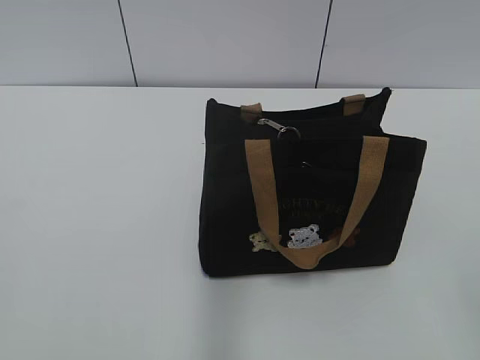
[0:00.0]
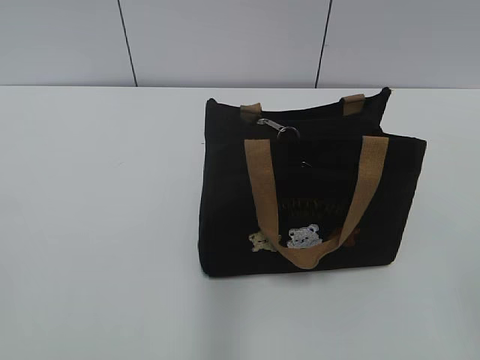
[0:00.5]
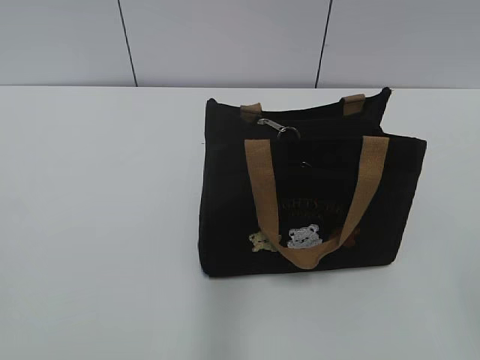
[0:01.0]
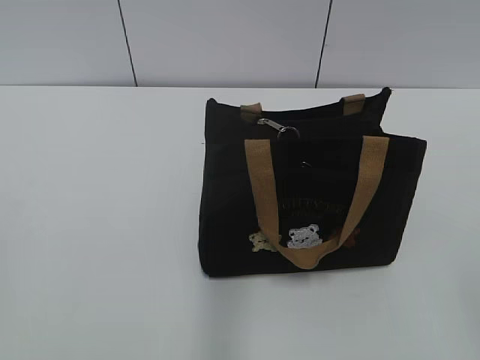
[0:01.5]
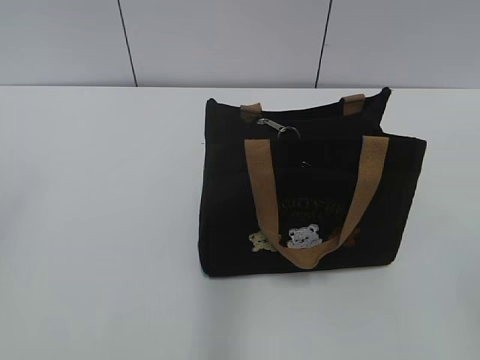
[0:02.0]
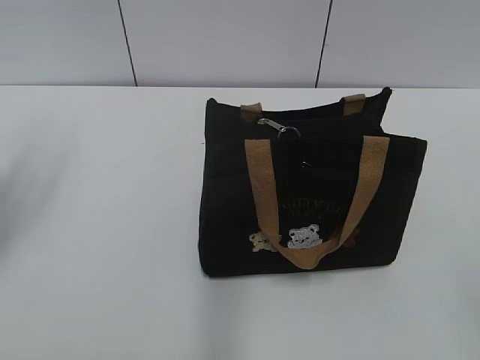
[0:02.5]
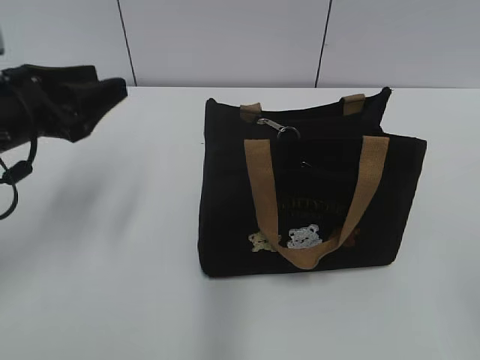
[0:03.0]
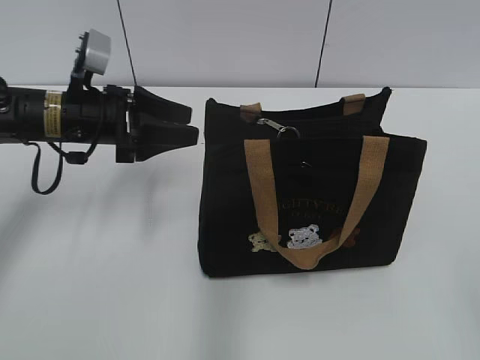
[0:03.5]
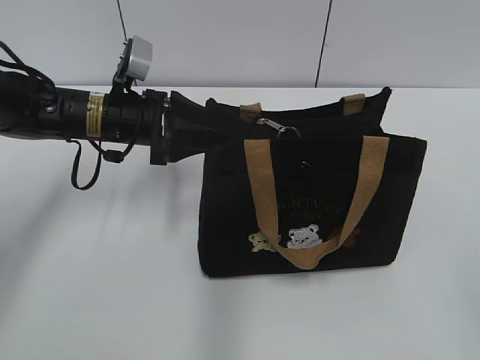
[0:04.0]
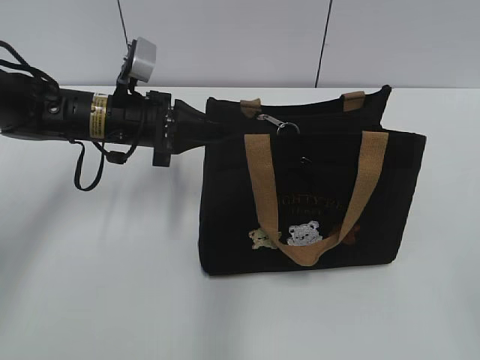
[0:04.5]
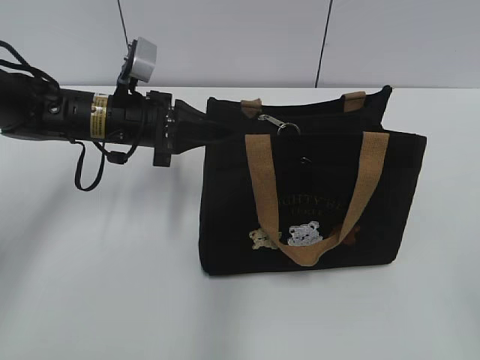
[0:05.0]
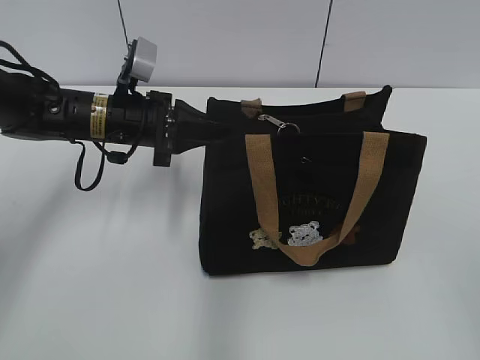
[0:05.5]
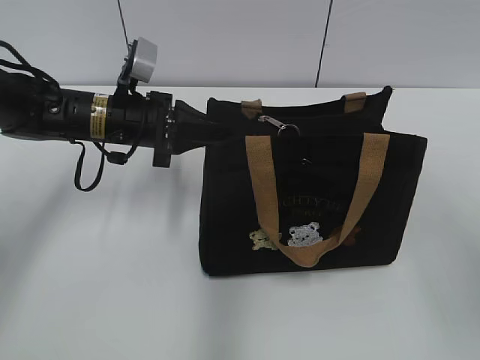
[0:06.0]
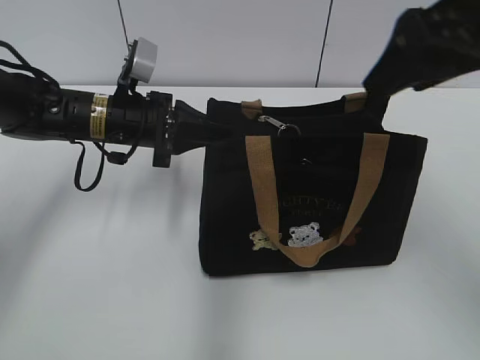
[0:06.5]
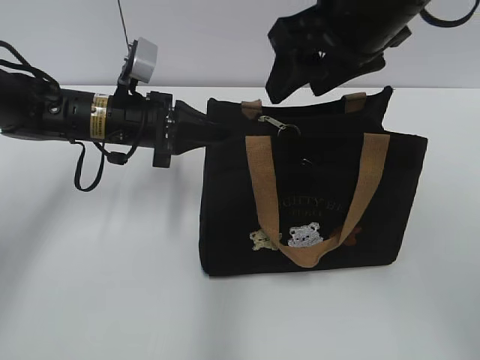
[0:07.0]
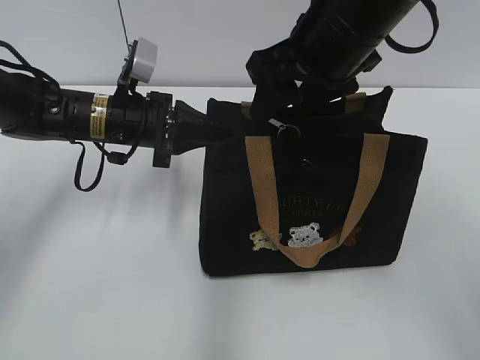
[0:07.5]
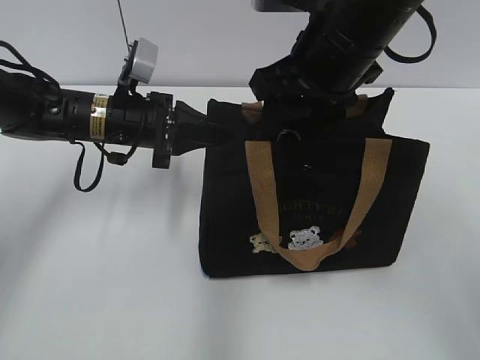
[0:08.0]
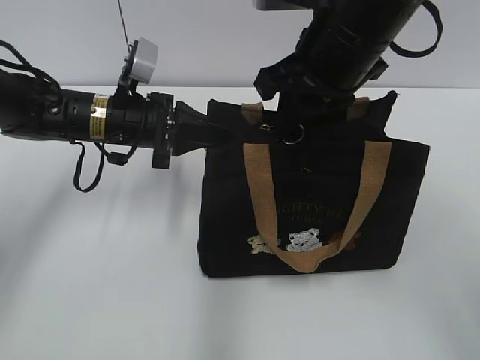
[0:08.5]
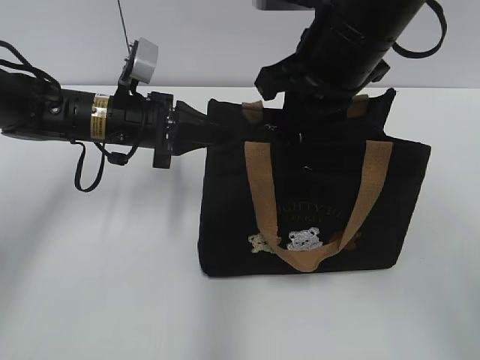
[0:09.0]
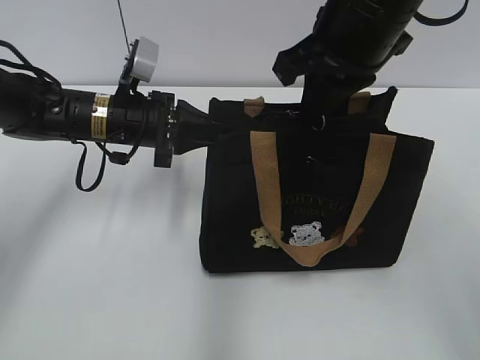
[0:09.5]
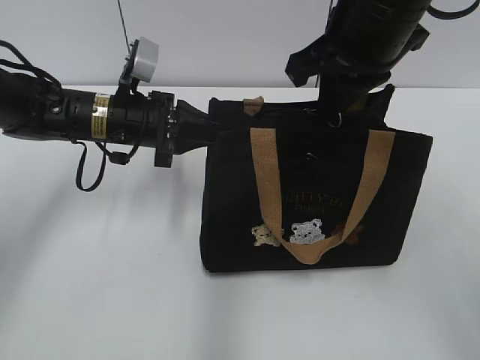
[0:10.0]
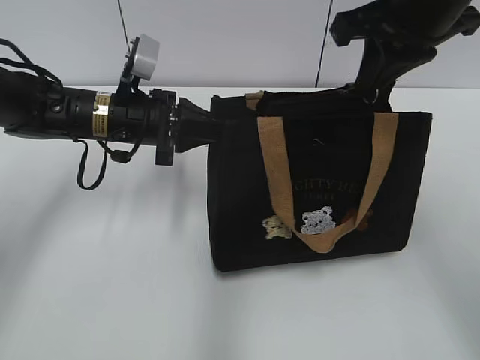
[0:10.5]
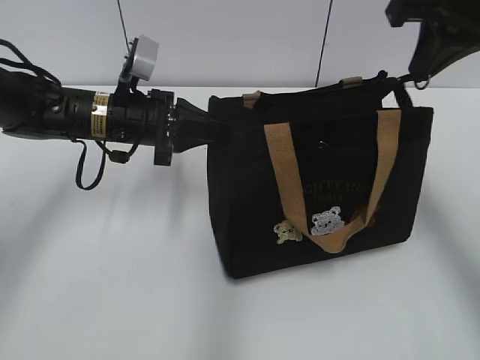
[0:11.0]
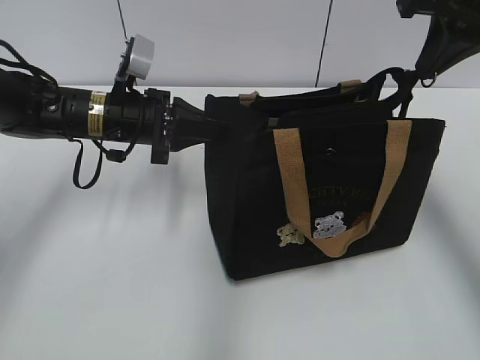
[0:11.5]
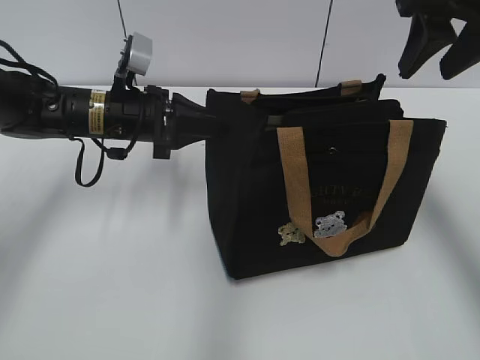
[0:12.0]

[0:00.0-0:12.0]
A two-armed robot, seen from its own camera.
Step, 0:00.0 to 0:11.5: Pull open the zipper with your right hand.
0:02.0 to 0:04.0: The left gripper goes approximately 40 cm forward, downward and to the right.
0:04.0 to 0:06.0: The left gripper closes its fingers. The right gripper shifts about 15 cm forward and upward.
0:06.0 to 0:08.0: The right gripper travels forward and to the left by roughly 25 cm.
0:08.0 to 0:10.0: The right gripper closes.
0:10.0 to 0:12.0: The right gripper shifts some 10 cm to the right, and opens.

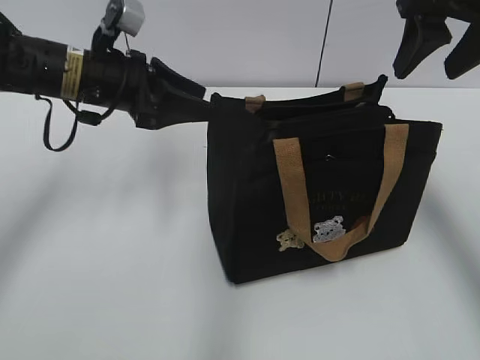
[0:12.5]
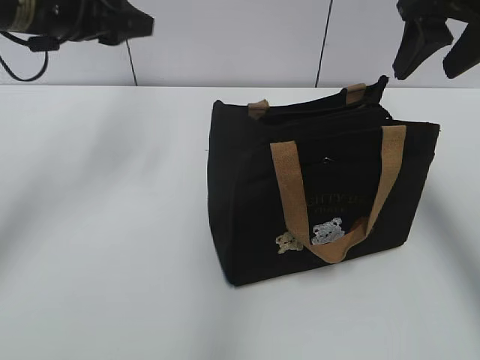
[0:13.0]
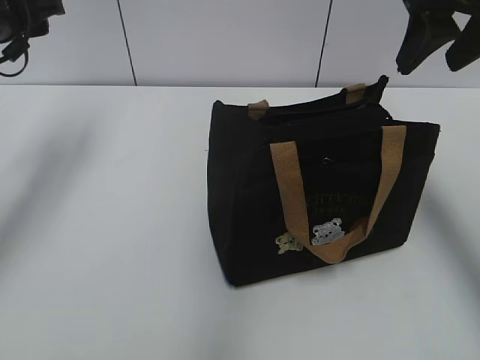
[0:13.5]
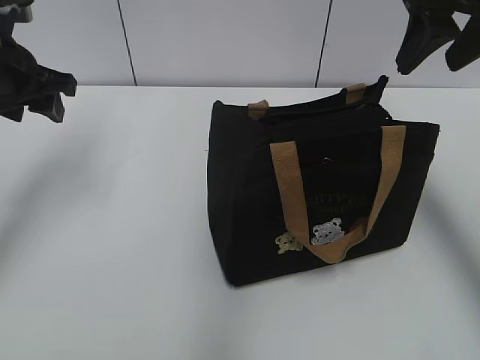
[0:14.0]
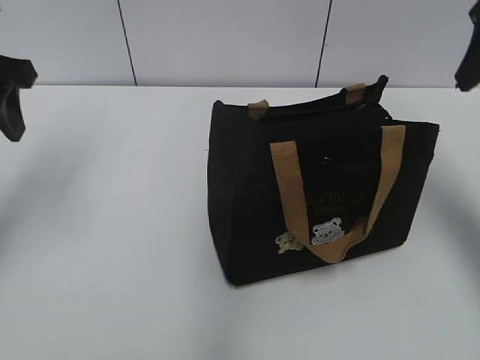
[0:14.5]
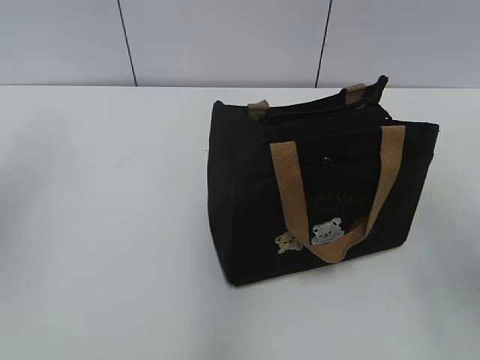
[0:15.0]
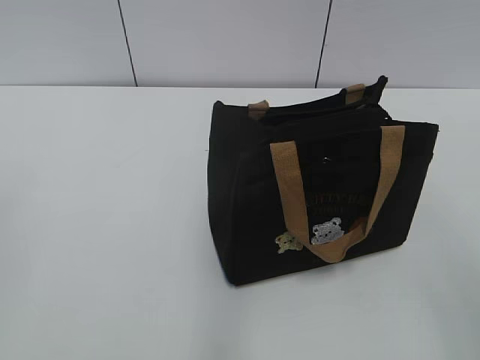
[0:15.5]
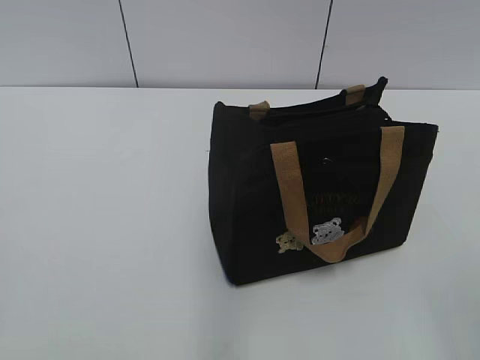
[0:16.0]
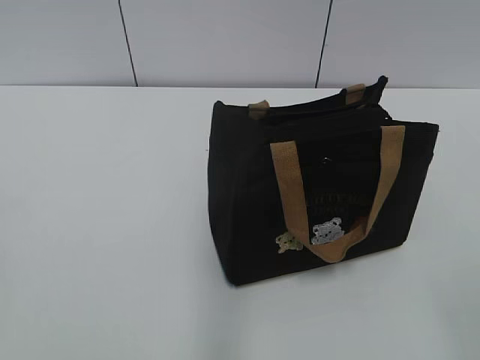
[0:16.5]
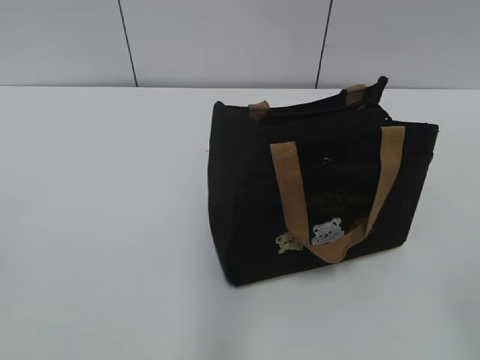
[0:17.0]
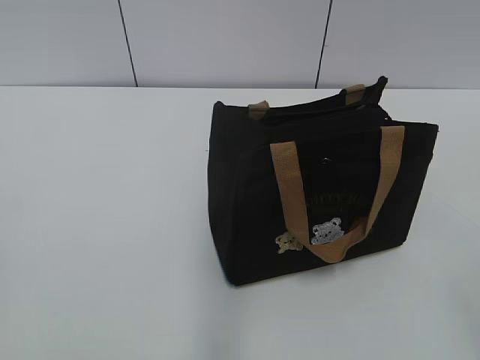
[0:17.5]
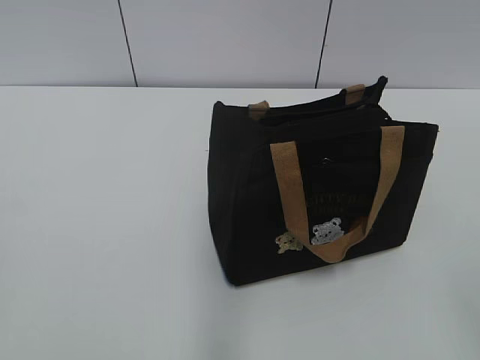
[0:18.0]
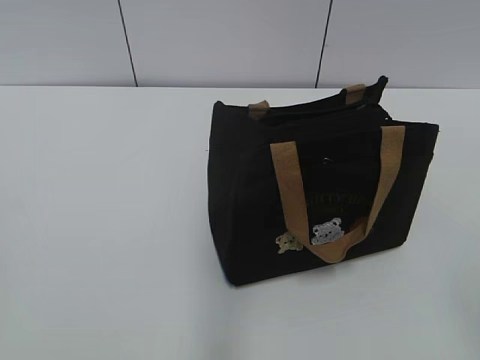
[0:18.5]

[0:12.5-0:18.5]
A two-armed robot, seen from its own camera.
0:12.5 to 0:14.5: The right gripper moves roughly 5 cm; the left gripper shifts some 15 cm to the left, upward and backward.
0:14.5 to 0:16.5: Both grippers move backward, roughly 30 cm.

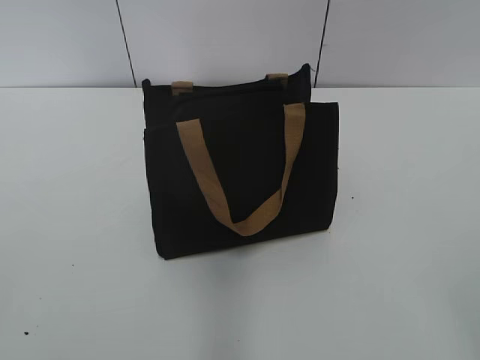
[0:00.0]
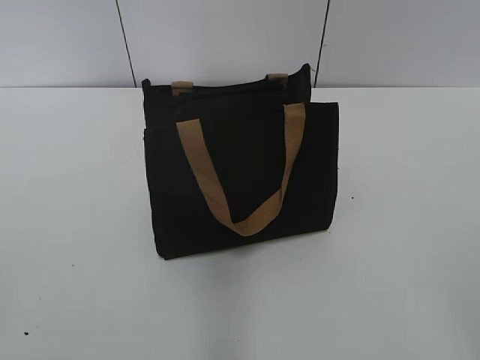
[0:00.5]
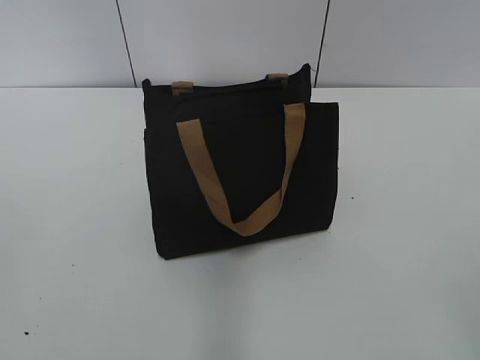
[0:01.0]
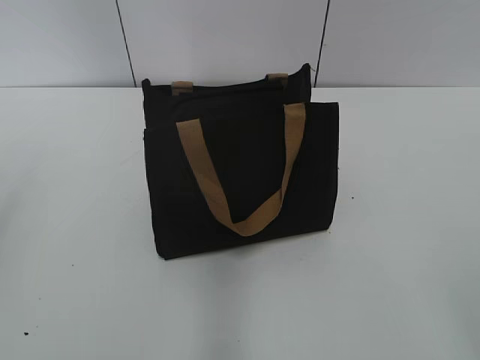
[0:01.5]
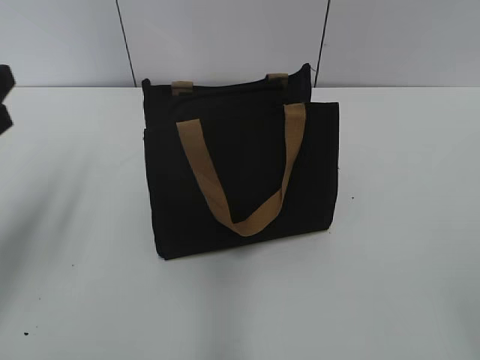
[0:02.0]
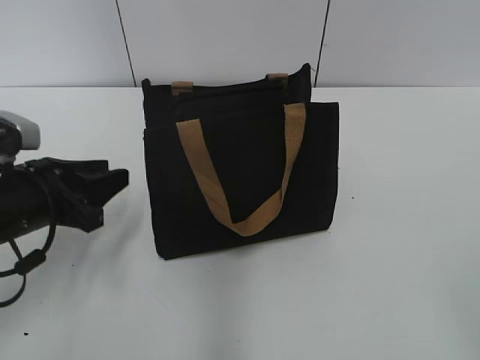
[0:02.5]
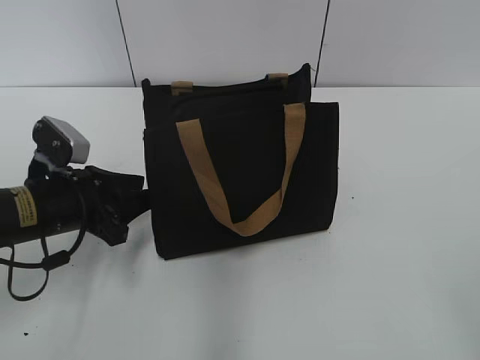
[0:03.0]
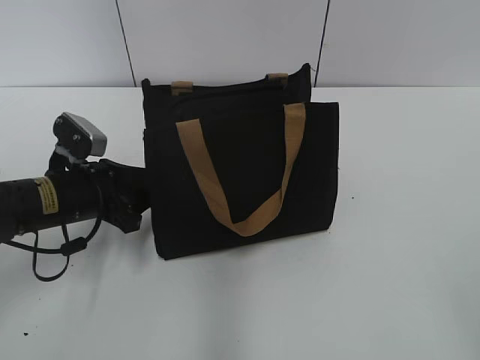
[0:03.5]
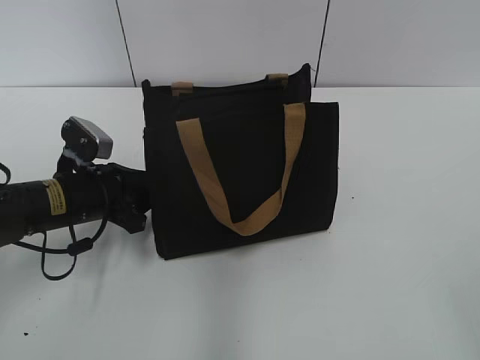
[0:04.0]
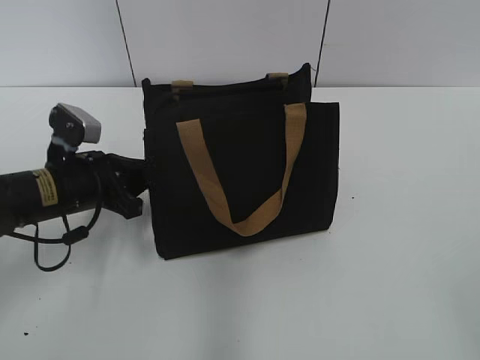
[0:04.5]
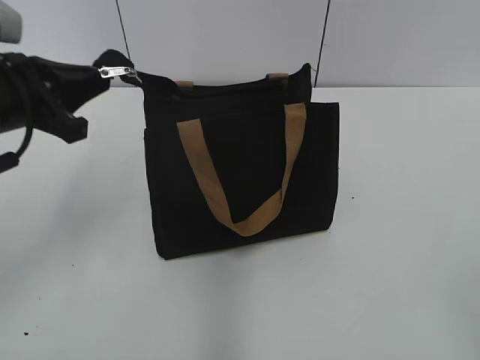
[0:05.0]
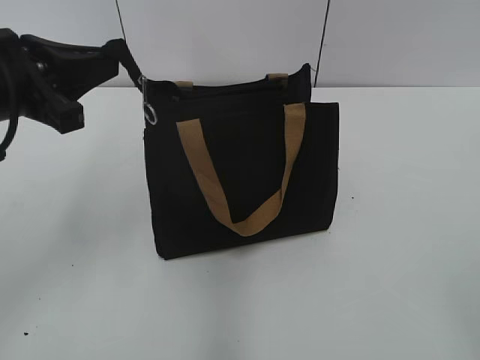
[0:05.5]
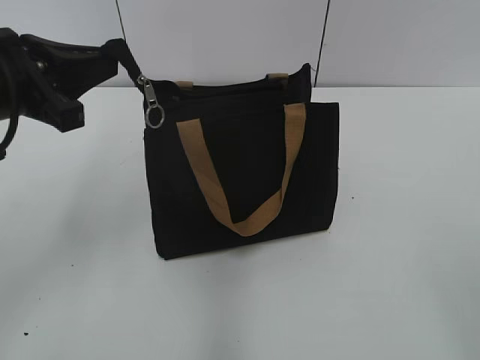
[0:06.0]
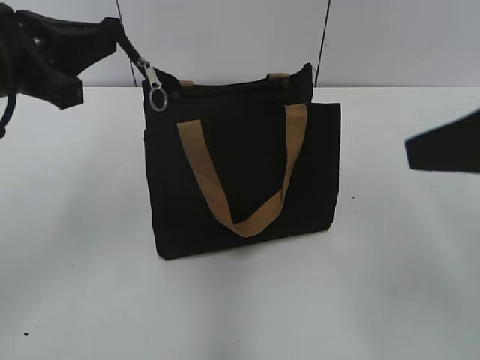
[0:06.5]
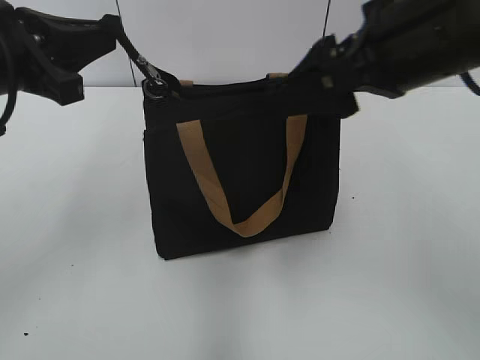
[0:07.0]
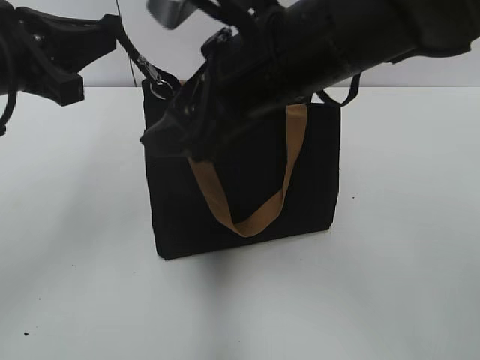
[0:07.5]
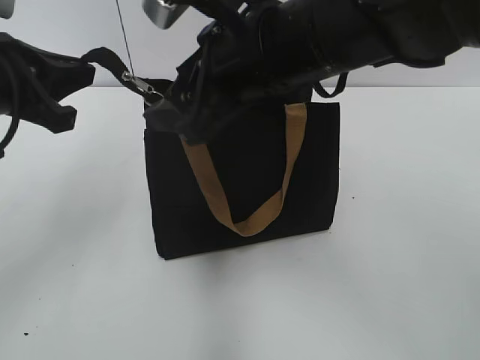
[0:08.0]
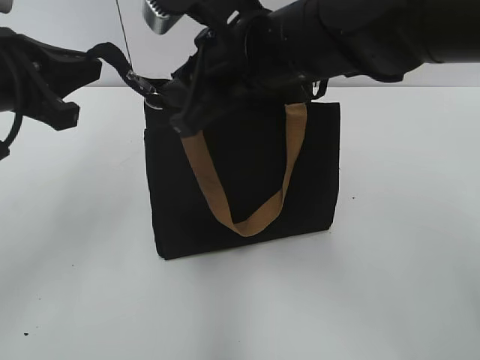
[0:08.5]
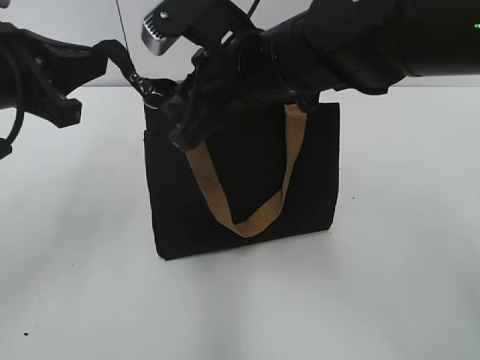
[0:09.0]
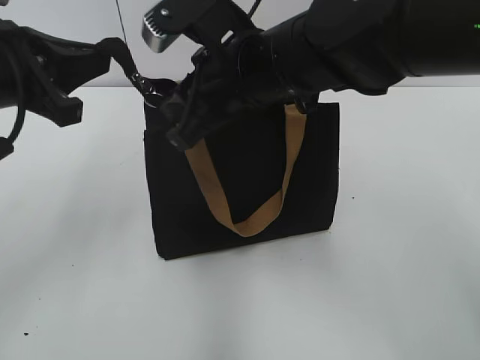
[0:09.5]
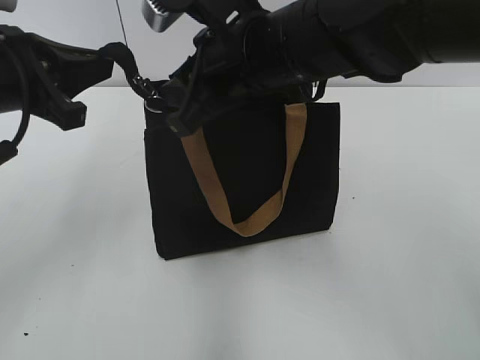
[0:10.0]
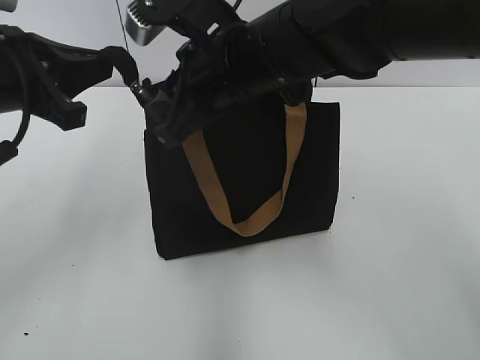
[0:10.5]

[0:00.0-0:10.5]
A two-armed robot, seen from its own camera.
0:02.0 to 0:04.0: The left gripper goes some 20 cm downward, forward and to the right.
0:04.0 to 0:06.5: The right gripper travels forward by about 15 cm. The left gripper heads upward, covering about 20 cm, and closes its fingers.
0:06.5 to 0:08.5: The right gripper goes roughly 25 cm to the left and forward, and closes its fingers.
0:08.5 to 0:10.5: There are only small adjustments of the grippers.
